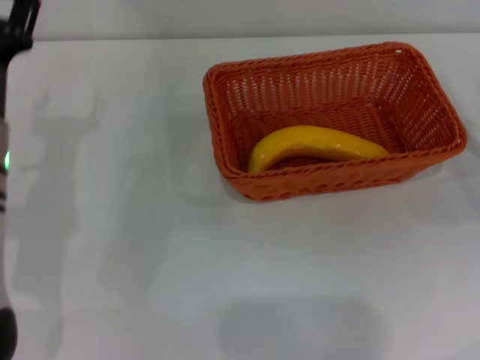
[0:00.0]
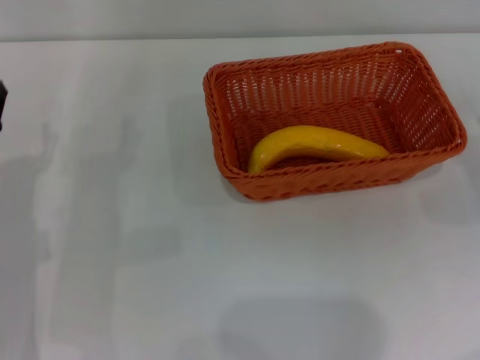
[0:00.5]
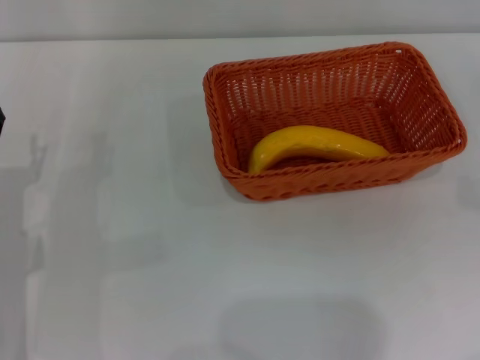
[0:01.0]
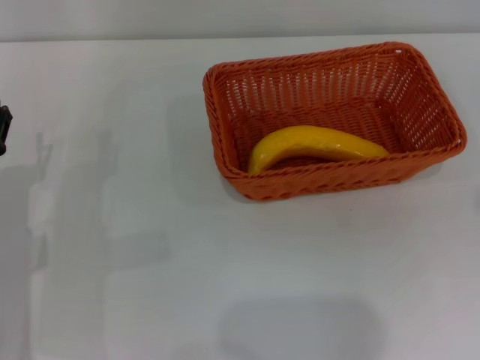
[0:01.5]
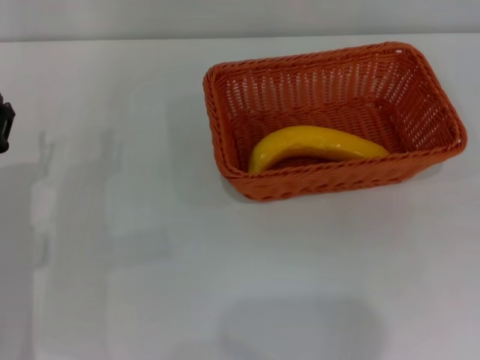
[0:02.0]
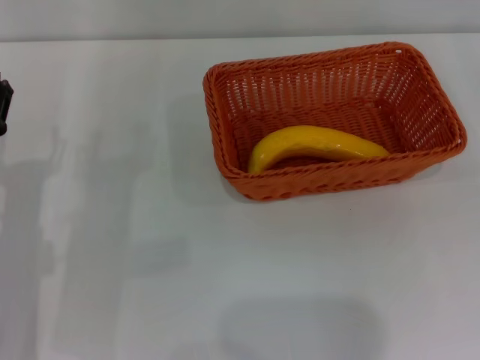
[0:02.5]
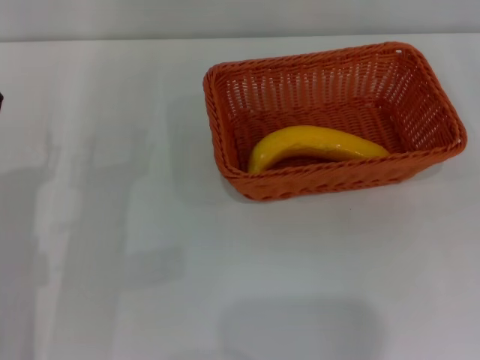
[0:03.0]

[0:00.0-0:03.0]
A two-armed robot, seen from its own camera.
0:00.0 to 0:01.5: The left gripper shifts approximately 10 cm downward and backward.
